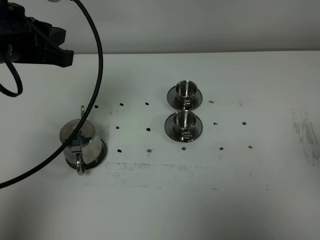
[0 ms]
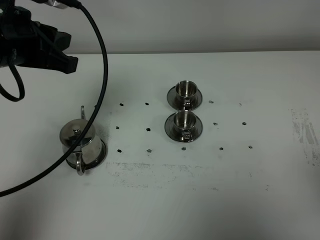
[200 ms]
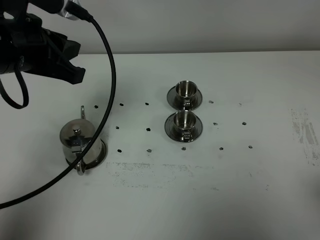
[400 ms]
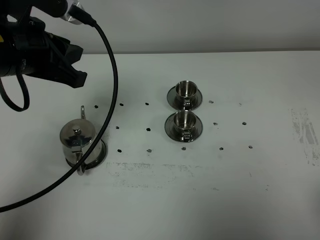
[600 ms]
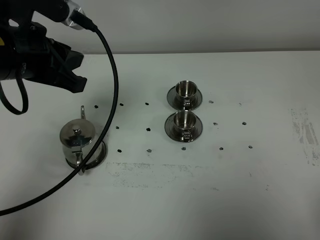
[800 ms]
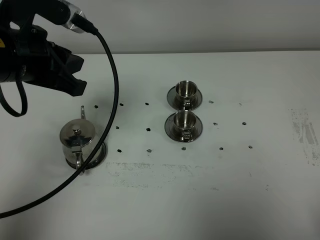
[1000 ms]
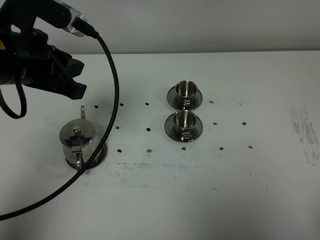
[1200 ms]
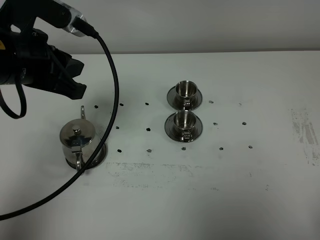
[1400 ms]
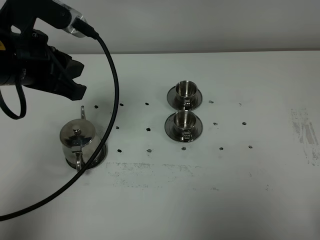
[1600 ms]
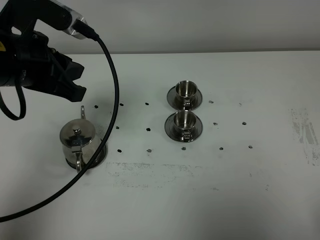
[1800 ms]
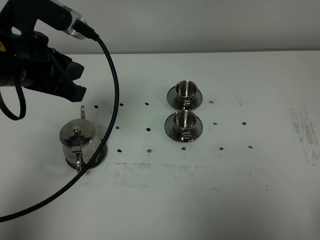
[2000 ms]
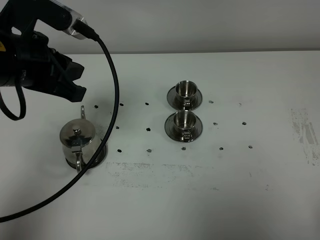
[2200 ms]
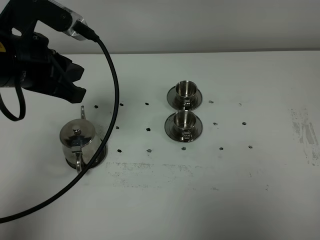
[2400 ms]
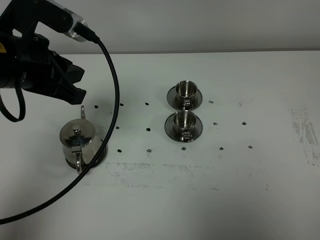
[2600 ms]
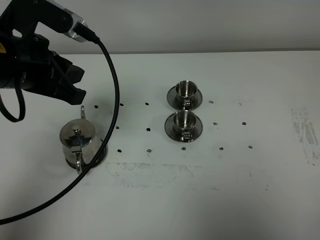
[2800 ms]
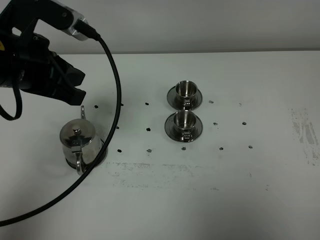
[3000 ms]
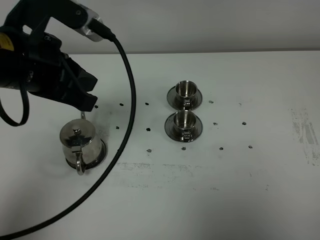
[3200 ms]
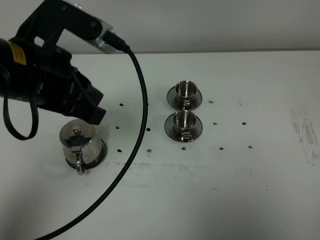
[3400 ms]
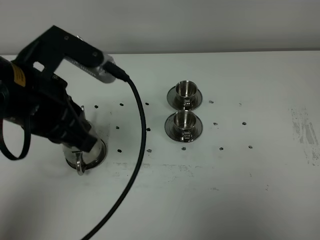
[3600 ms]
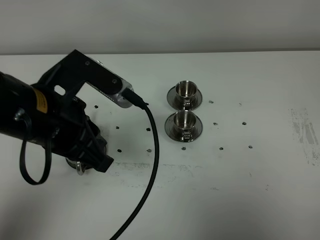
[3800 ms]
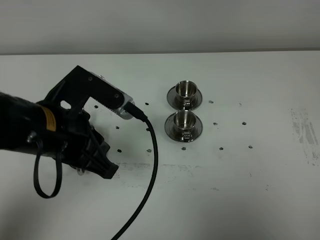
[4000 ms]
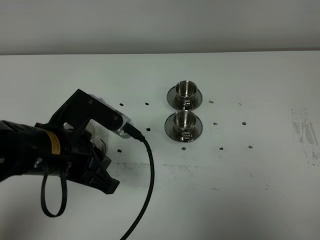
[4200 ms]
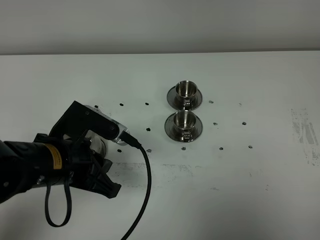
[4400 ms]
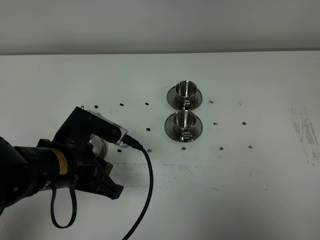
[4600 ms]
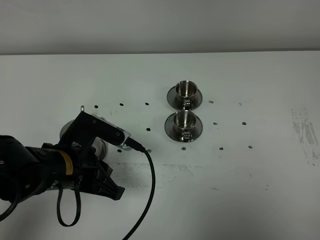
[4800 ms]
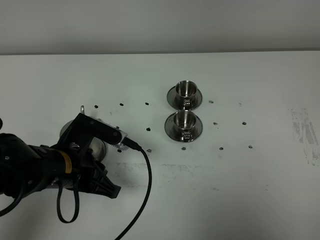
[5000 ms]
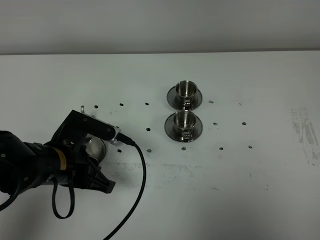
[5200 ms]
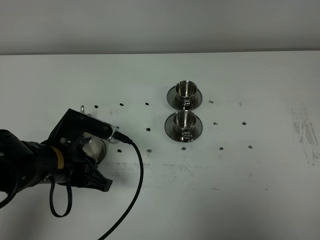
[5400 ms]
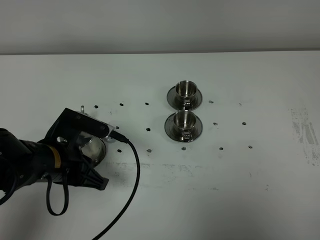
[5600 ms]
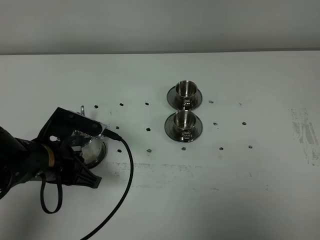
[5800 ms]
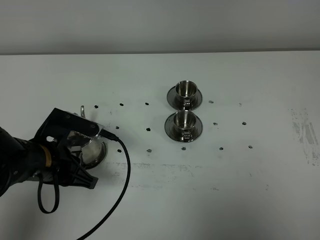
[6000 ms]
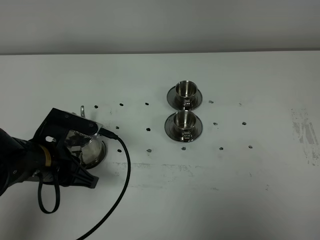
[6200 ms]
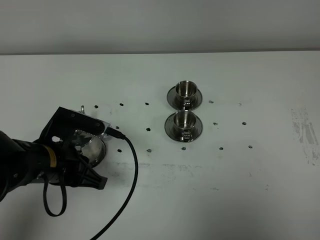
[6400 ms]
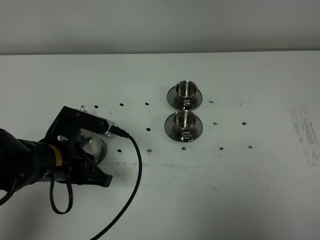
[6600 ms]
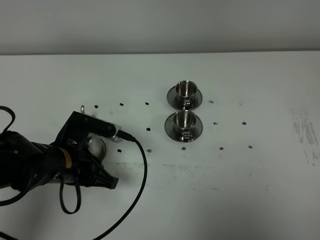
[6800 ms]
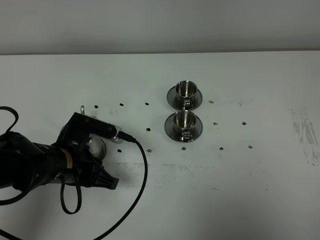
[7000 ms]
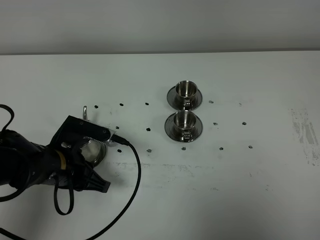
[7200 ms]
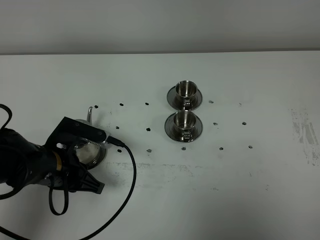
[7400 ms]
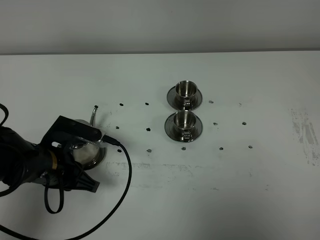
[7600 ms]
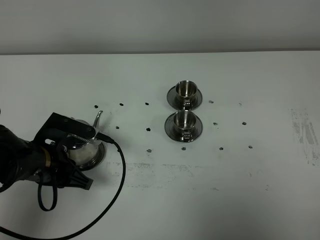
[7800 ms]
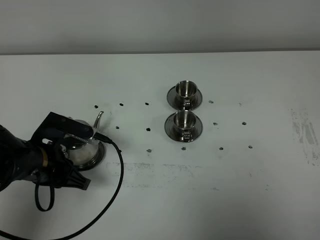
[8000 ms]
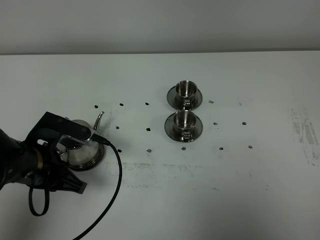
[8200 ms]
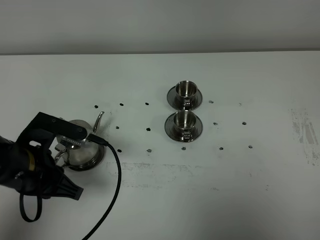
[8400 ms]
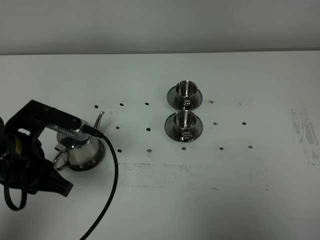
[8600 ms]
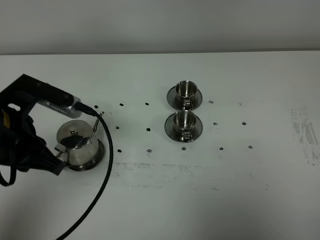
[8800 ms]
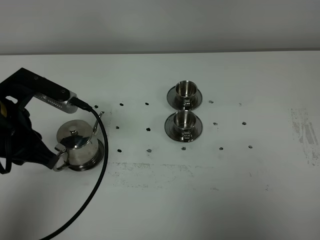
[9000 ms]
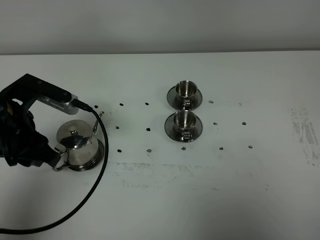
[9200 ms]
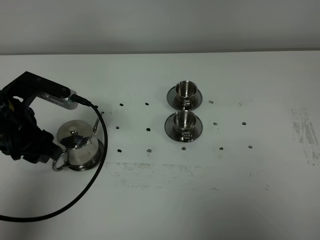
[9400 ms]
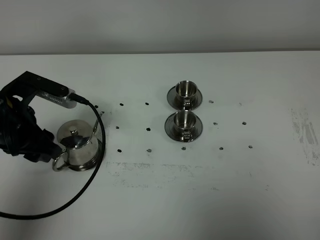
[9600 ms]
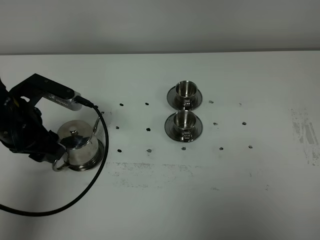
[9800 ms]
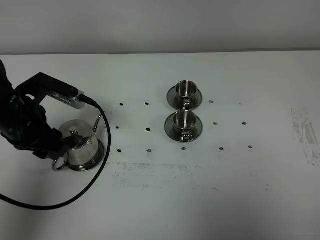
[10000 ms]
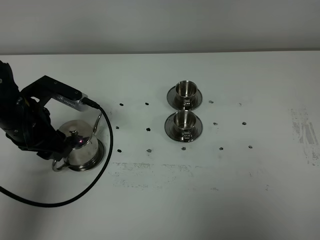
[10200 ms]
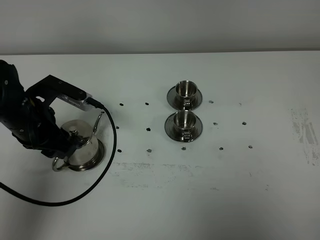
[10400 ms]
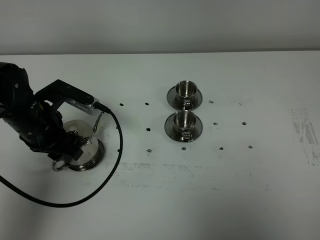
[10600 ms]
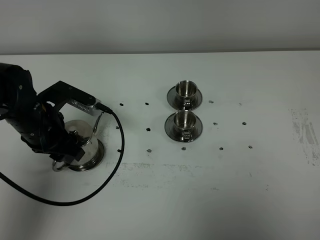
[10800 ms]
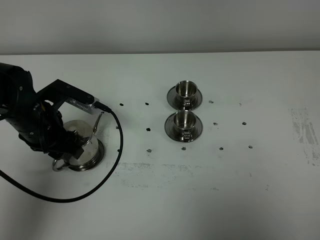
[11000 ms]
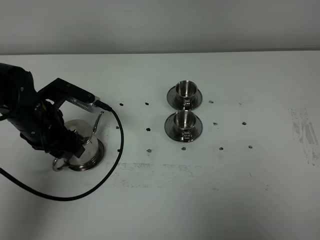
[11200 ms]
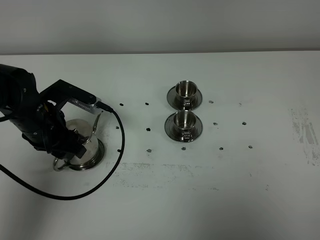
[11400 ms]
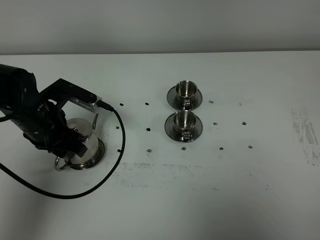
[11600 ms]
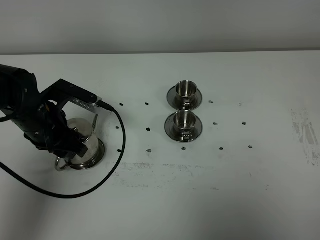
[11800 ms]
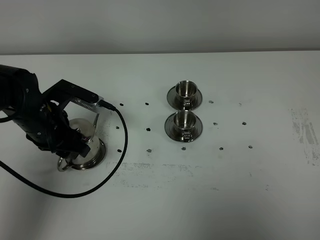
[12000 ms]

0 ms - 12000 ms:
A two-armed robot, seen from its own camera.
Task of the whole recording: grasp the stainless steel teapot and pour the tea into the two stainless steel teacups one by one, put the stainless steel teapot back in its original place.
0 ms - 1600 ms: The right gripper travels downward and backward by about 15 cm.
1600 ms - 3000 ms: The grippers move only a little.
3000 ms - 4400 ms: The left gripper heads downward and backward, covering roughly 15 cm.
4400 ms - 6000 ms: The left gripper moves roughly 5 cm.
6000 ms - 7600 ms: The grippers make only small movements.
7600 ms - 9000 ms: The left gripper heads upward, covering about 15 cm.
9000 ms - 10400 ms: The left gripper heads downward and forward, covering some 10 cm, and opens.
10400 ms - 12000 ms: The grippers move only a little.

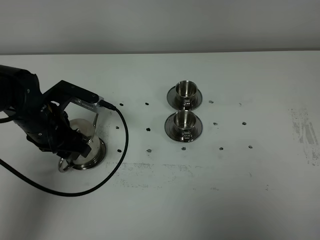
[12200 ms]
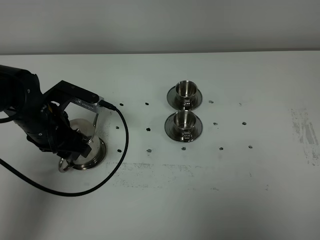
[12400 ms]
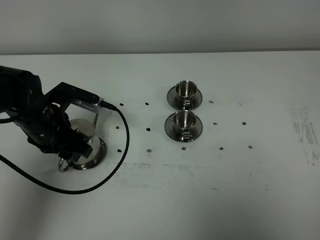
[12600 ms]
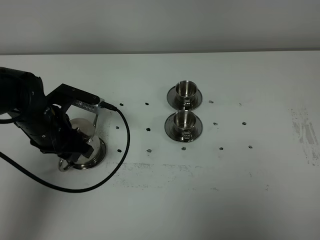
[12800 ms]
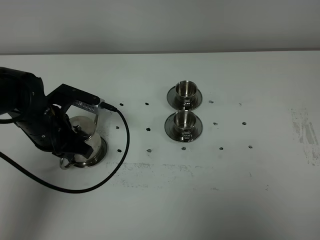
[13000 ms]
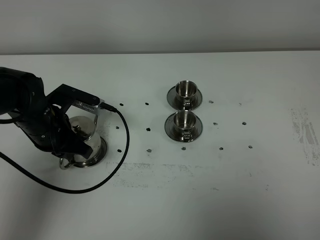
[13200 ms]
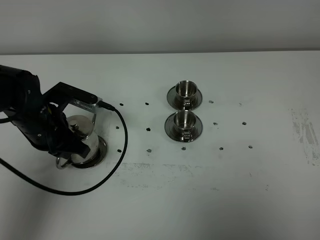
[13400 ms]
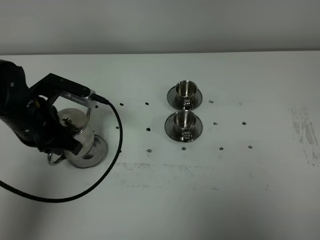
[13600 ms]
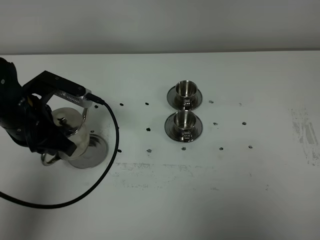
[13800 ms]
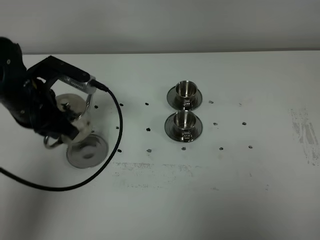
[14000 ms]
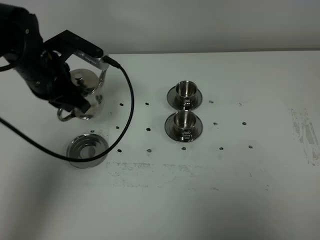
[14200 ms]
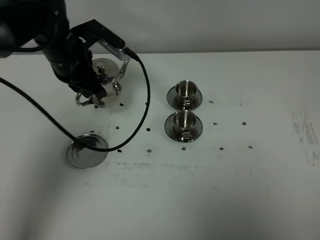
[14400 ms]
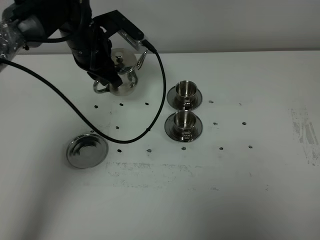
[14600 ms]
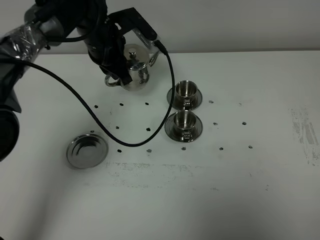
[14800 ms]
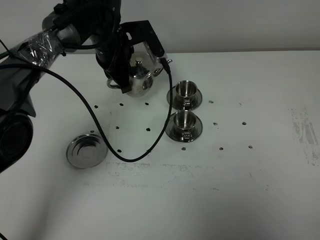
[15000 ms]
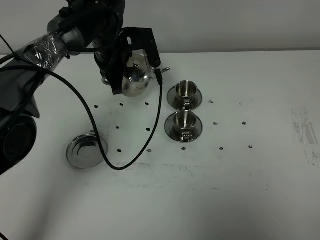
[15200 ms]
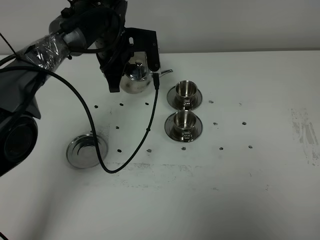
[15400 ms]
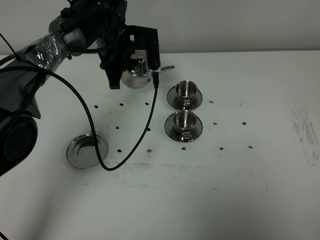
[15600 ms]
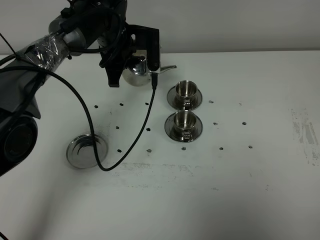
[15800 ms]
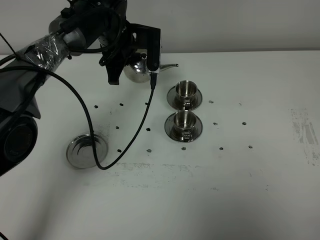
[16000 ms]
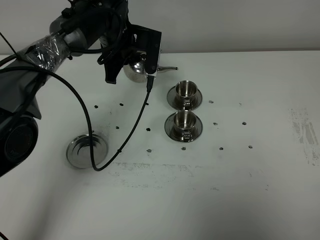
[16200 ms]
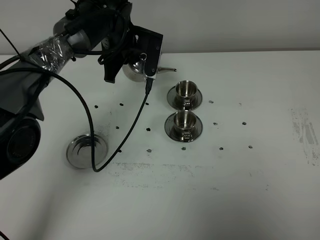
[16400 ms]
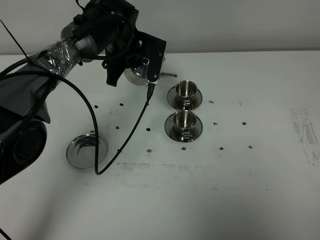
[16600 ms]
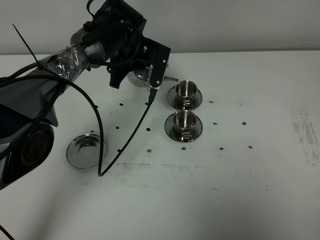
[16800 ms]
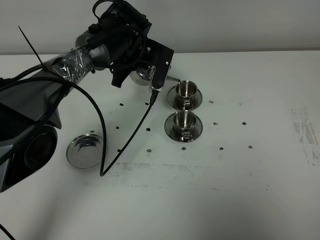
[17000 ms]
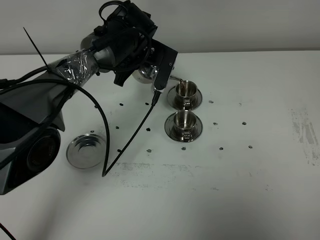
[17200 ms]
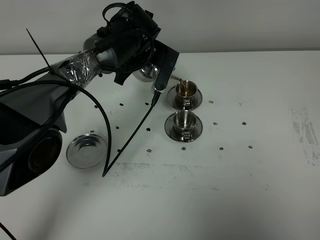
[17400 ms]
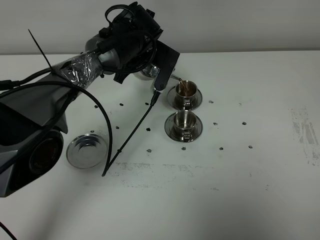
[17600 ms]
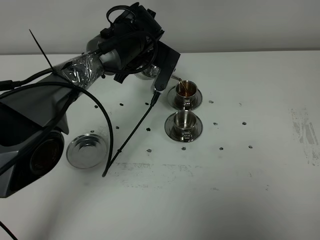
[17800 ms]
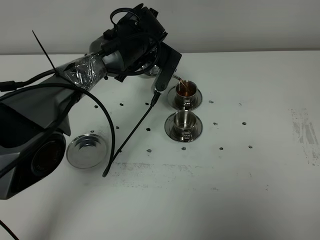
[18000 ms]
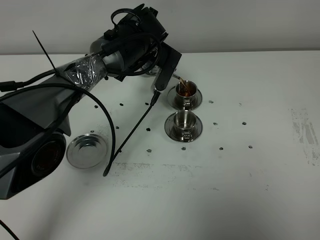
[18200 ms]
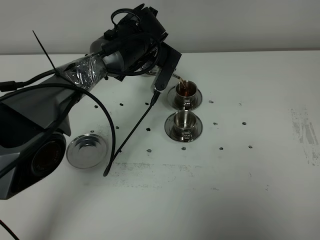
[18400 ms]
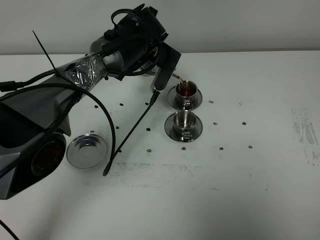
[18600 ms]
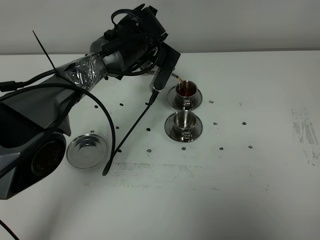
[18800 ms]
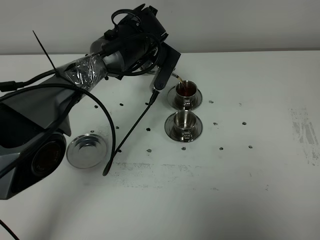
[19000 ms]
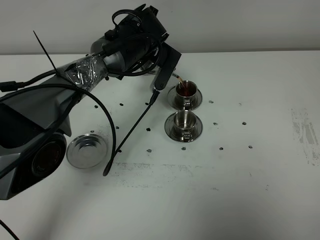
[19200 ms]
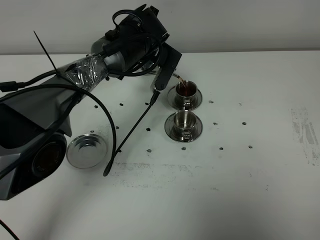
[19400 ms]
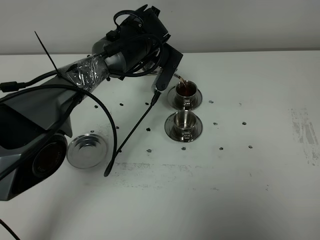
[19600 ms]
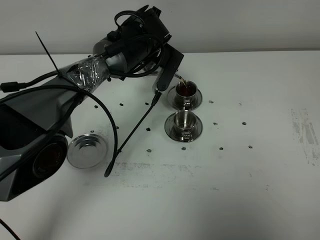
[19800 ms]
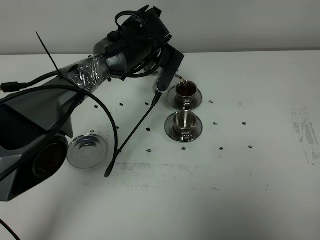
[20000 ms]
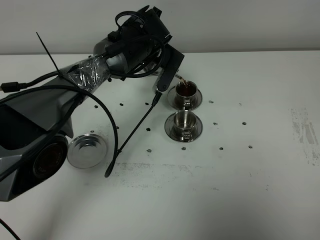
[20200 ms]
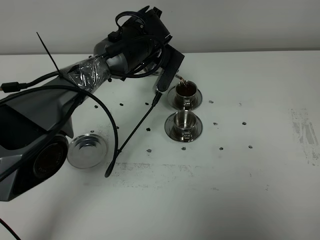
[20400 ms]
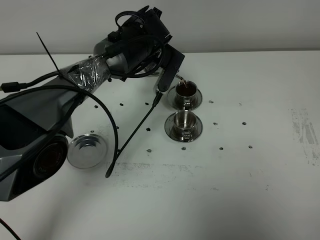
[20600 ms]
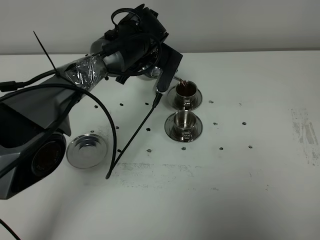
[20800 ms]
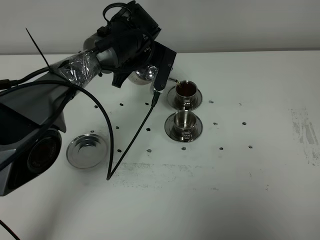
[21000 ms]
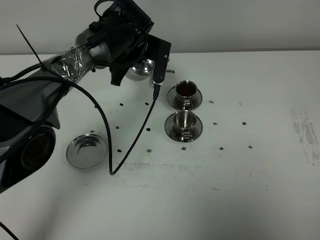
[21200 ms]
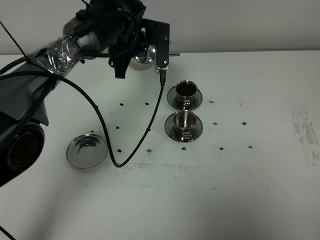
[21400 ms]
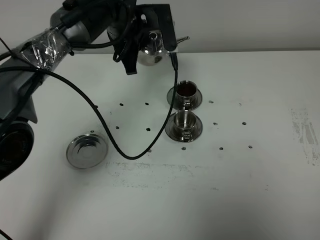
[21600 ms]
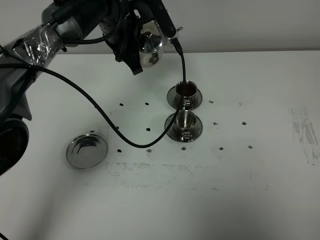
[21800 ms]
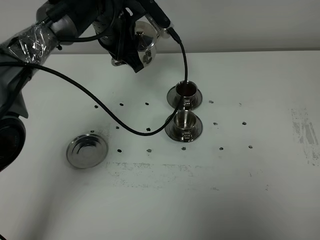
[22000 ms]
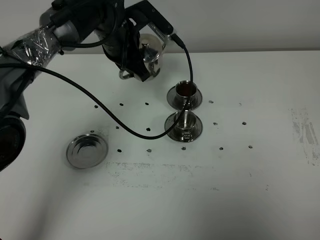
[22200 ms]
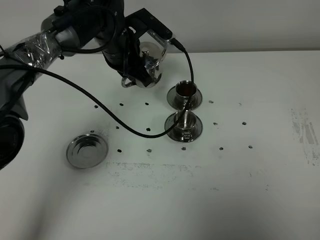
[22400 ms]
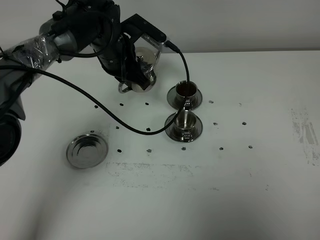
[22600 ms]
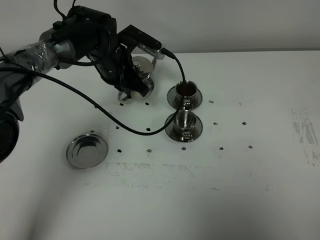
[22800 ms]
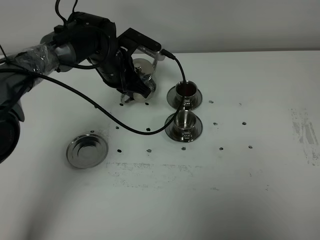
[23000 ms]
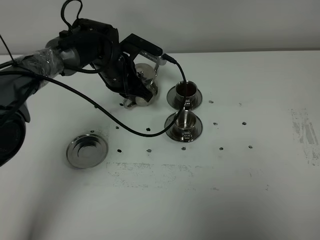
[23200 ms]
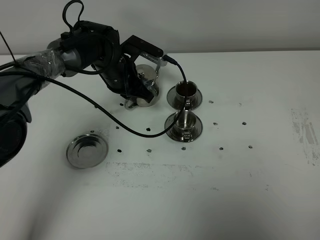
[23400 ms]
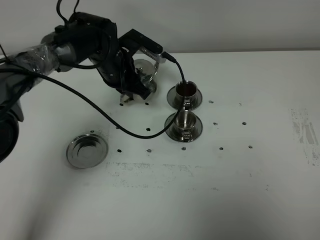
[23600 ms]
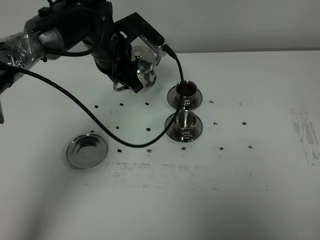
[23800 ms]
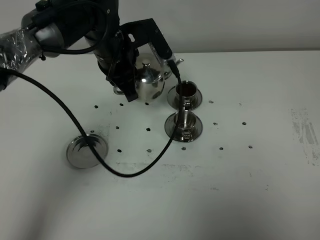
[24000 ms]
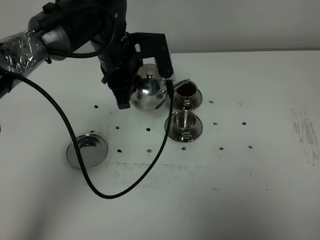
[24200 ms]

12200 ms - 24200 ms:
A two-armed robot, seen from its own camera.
Task of the whole recording: grasp the stainless steel teapot and pour the tea into the two stainless steel teacups one by one, put the stainless steel teapot back in its original place.
Step, 13800 ms - 21200 ms: Pour tea into the teacup with the left gripper.
12200 ms - 13800 ms: The left gripper changes place by some 5 cm, and closes up.
13800 ms - 15200 ms: The left gripper travels forward and to the right by approximately 20 cm.
16600 ms - 18200 ms: The grippers stay close to where they were, moving slightly.
18200 ms - 19800 ms: Both grippers stay about where they are.
22600 ms - 24200 ms: The left gripper shifts roughly 5 cm backward.
